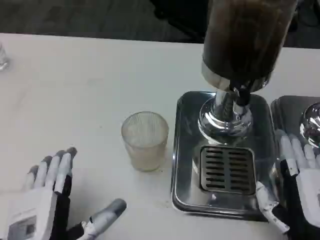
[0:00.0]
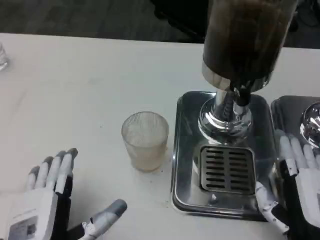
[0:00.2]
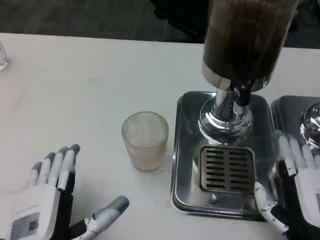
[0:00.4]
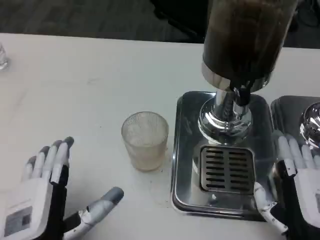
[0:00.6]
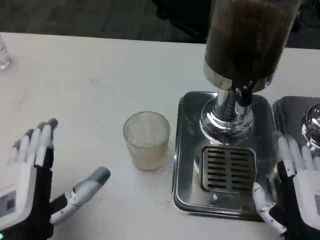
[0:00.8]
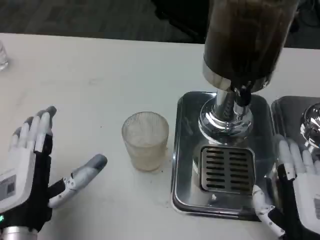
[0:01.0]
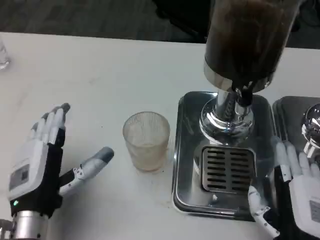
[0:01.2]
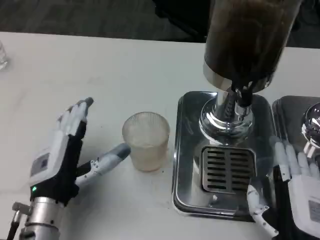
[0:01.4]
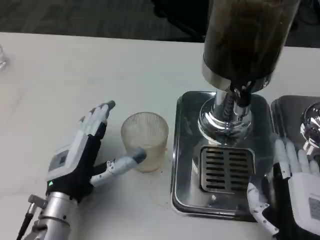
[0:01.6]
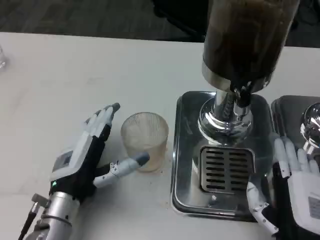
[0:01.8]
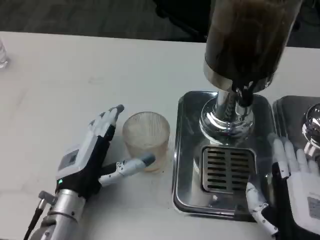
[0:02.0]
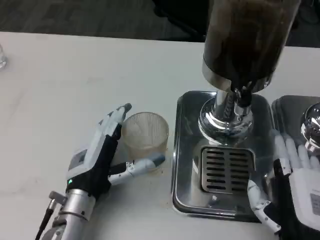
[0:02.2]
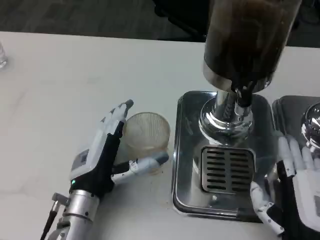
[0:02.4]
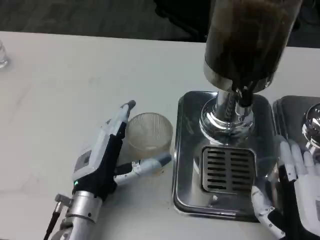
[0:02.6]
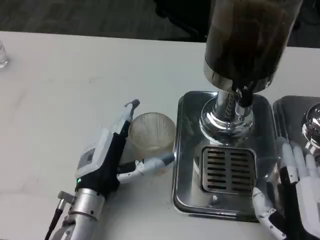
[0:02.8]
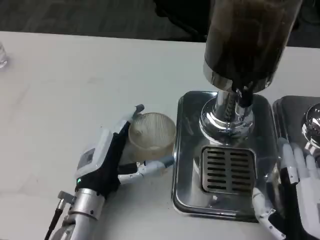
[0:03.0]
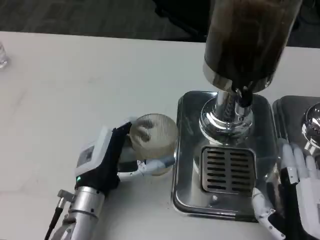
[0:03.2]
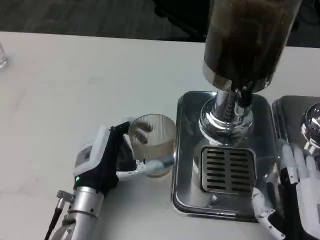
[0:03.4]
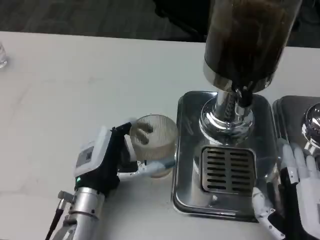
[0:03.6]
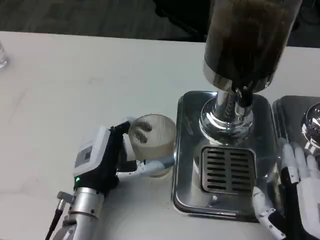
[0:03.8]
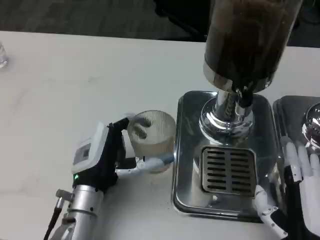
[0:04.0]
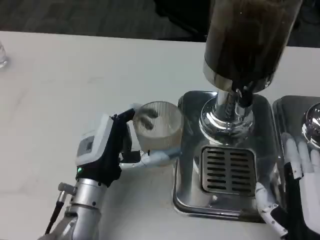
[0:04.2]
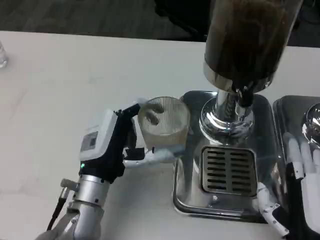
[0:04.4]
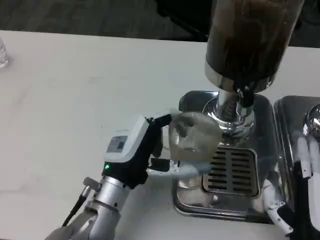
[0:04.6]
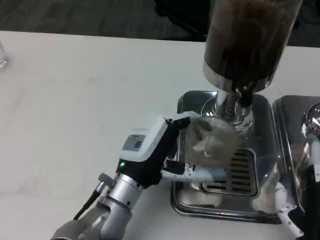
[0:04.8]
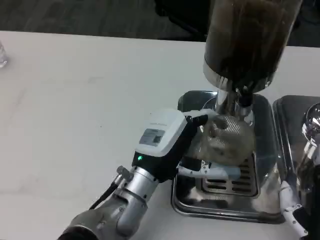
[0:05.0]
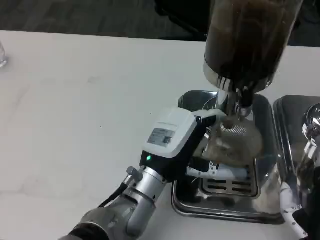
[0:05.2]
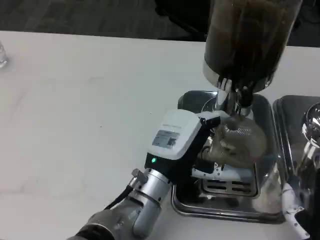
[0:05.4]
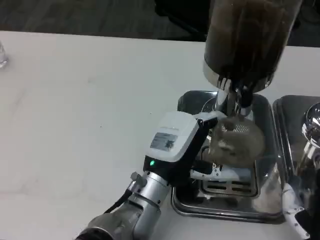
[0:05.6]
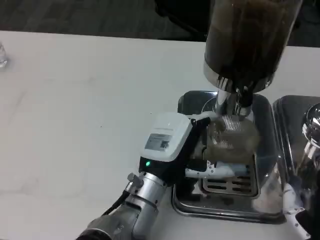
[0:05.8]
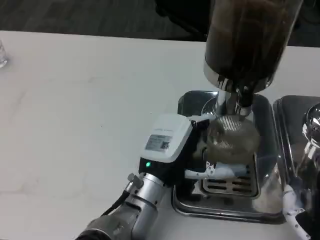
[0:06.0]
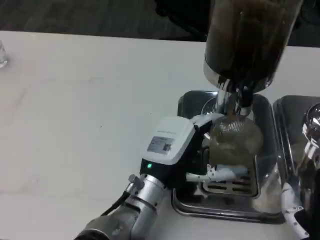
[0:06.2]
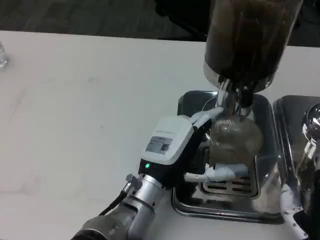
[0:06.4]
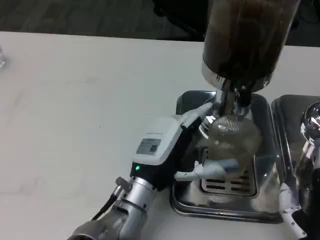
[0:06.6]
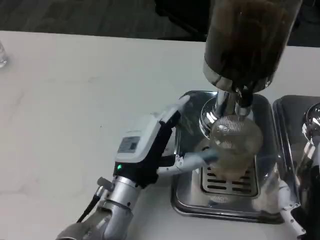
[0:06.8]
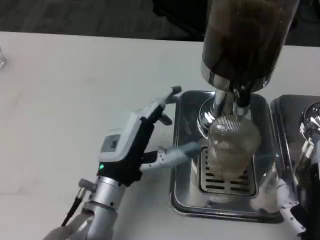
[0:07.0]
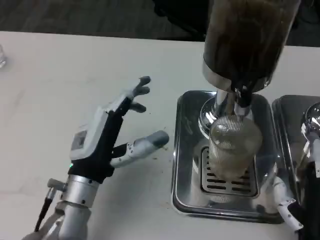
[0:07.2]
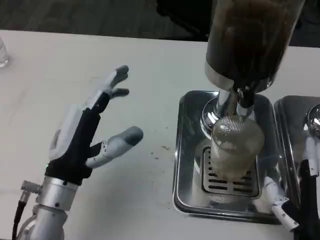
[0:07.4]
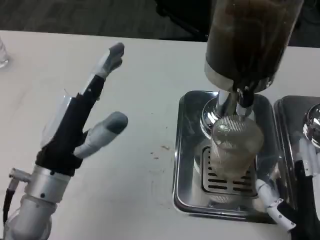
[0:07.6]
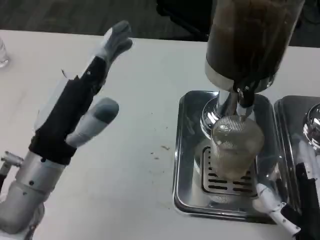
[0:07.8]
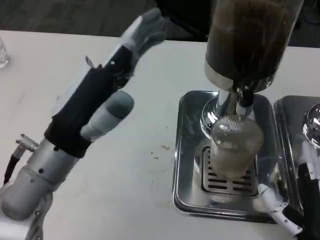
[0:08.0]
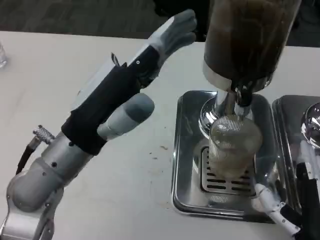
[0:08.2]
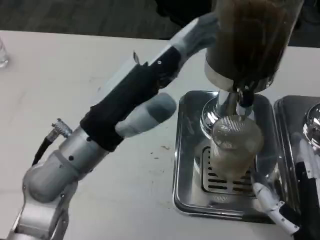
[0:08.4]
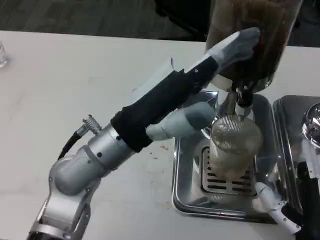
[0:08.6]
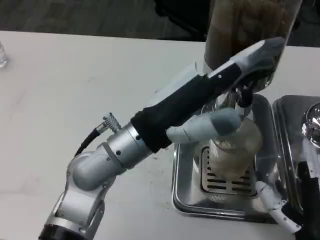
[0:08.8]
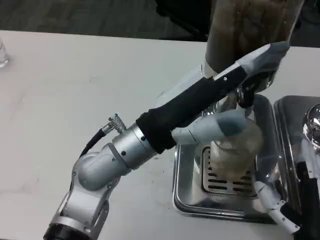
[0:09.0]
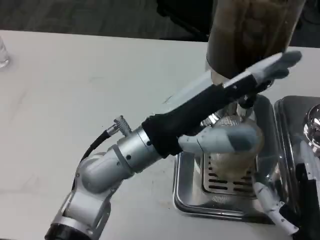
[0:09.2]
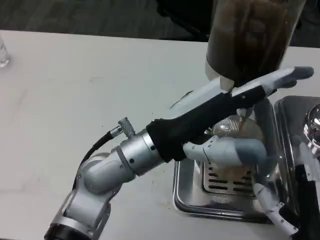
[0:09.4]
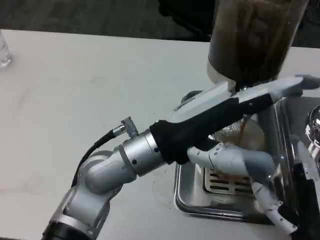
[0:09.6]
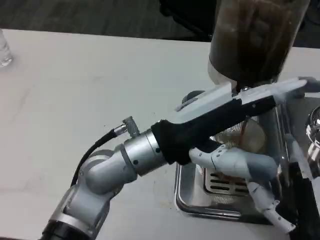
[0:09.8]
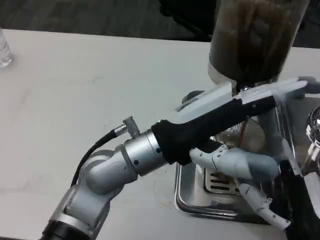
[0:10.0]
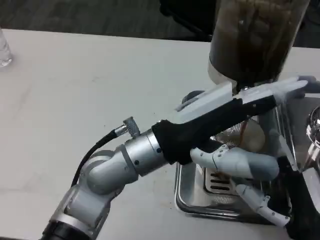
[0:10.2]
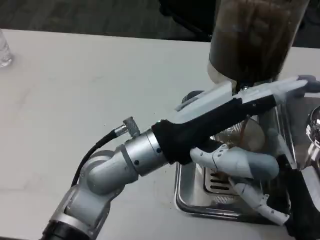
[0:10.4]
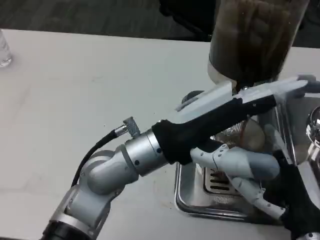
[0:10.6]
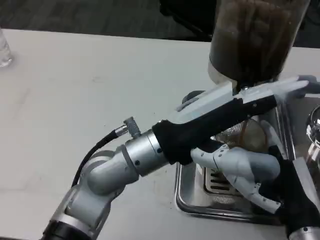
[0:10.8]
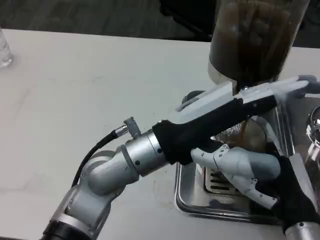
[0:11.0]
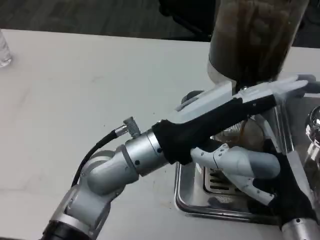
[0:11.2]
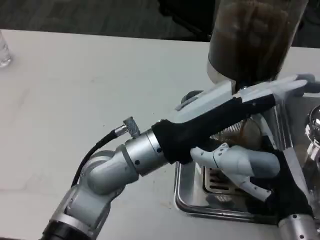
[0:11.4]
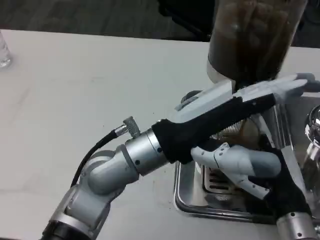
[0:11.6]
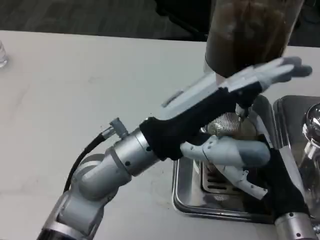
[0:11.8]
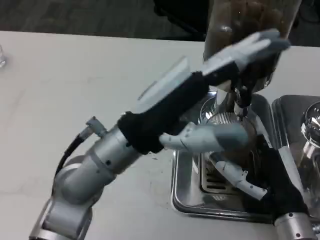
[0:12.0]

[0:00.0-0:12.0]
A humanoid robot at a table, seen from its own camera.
Task of the whole recording: Grasp the cup under the faucet to collect the drink, then remove the cup.
0:00.0 to 0:01.6: The left hand shifts some 10 cm forward.
0:03.0 to 0:04.4: The hands stay close to where they were, moving slightly.
0:04.4 to 0:06.0: The left hand goes roughly 10 cm to the right.
0:06.0 to 0:07.6: The left hand goes roughly 15 cm to the left and upward.
0:07.6 to 0:09.0: The left hand moves to the right and upward, about 10 cm.

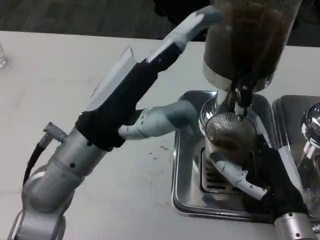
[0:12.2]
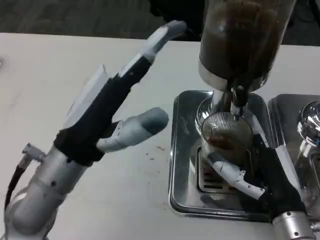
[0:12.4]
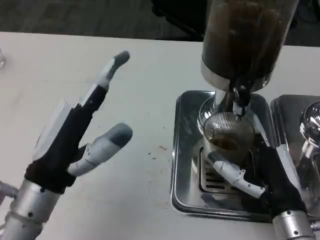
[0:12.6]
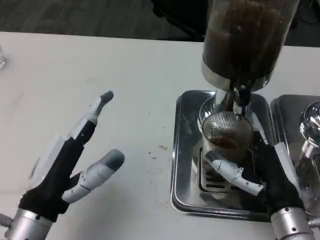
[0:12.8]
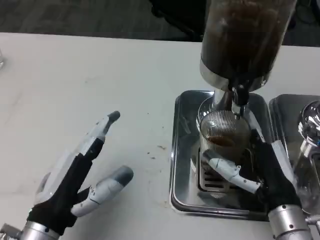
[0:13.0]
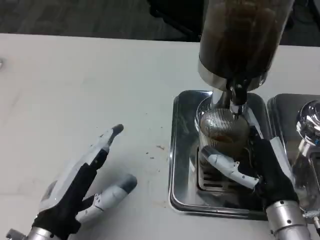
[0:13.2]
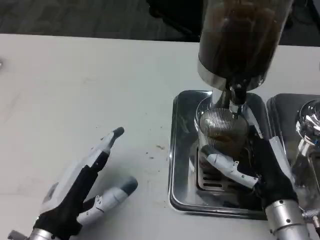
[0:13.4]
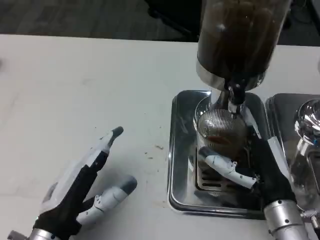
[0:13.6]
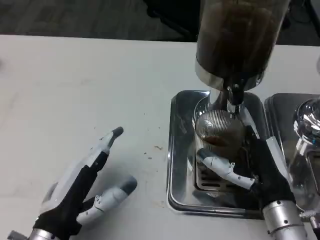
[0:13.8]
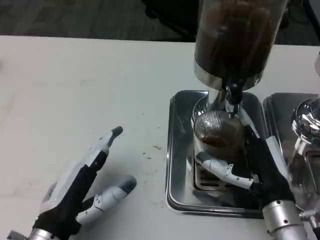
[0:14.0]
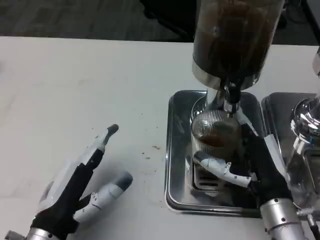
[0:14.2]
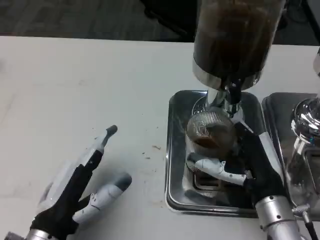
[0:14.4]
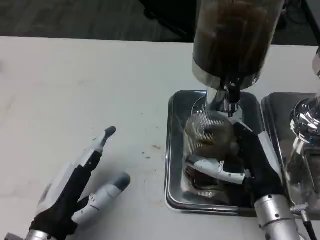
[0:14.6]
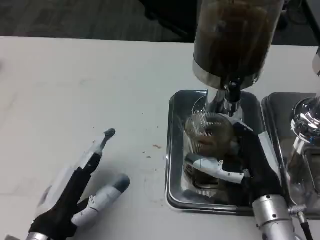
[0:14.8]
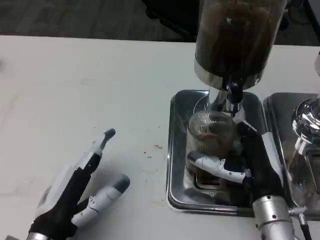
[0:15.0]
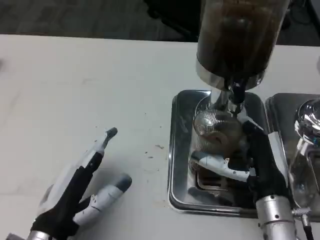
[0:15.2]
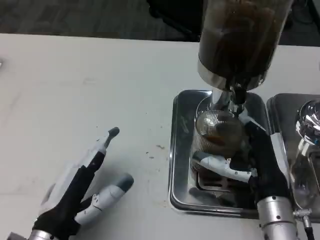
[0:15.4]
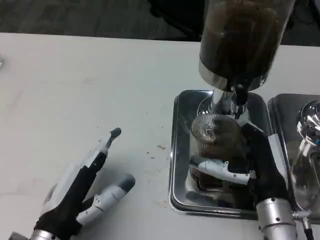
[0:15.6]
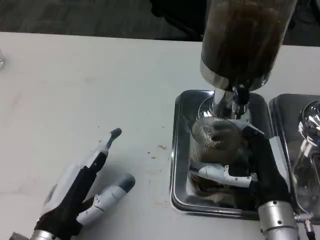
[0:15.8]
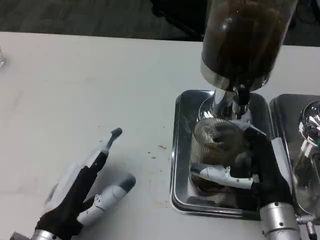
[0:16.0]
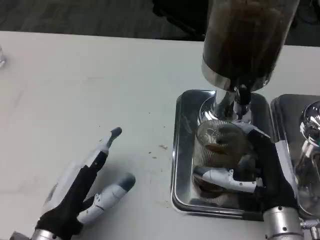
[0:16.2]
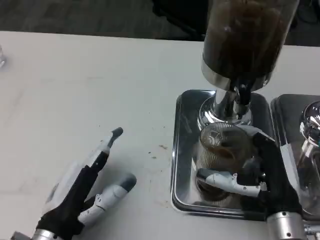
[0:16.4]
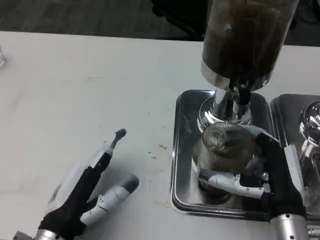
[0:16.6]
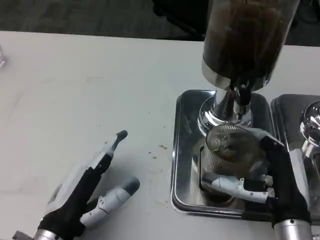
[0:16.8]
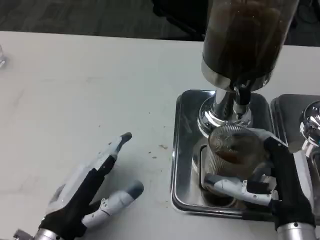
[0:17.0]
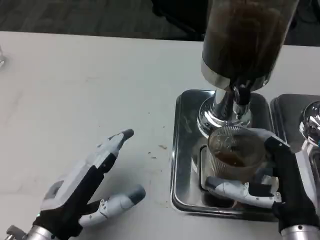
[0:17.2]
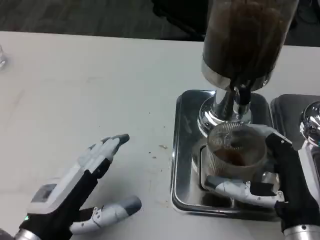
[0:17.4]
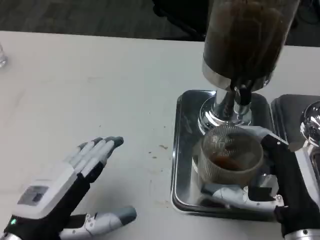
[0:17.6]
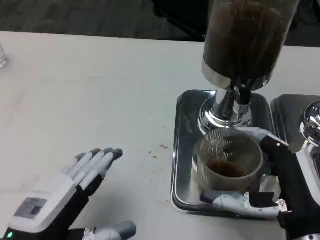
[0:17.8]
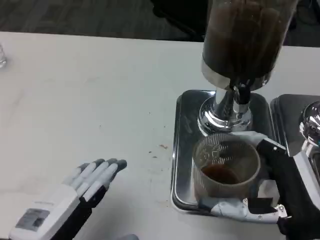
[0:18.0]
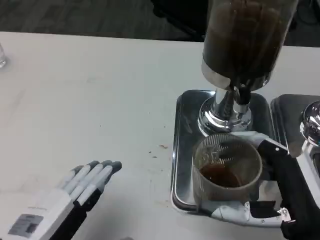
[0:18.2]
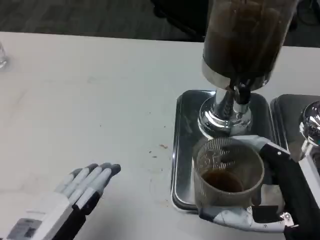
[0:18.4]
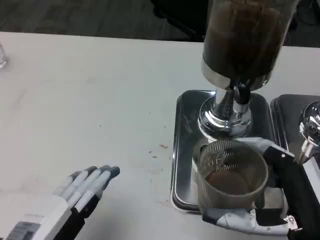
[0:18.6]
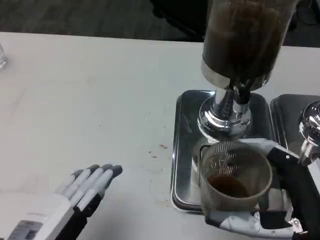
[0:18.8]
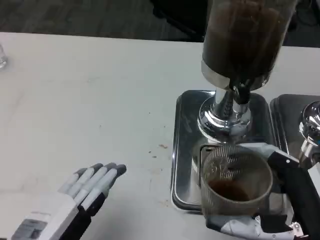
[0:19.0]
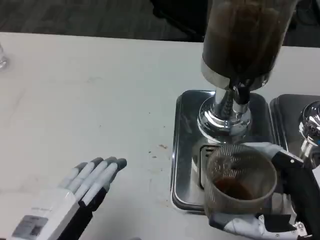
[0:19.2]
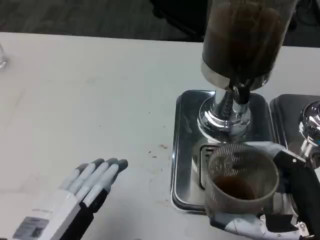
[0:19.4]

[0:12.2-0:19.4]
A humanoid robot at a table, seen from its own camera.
Task of the whole recording: Grasp the cup under the faucet to collect the drink, then remove the cup.
0:12.2 to 0:13.6: The left hand travels downward, backward and to the left by roughly 15 cm.
0:13.6 to 0:15.0: The hands make only small movements.
0:16.6 to 0:18.0: The left hand shifts roughly 10 cm upward and backward; the right hand travels backward by some 5 cm.
0:18.0 to 0:19.4: The hands make only small movements.

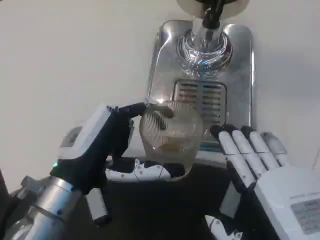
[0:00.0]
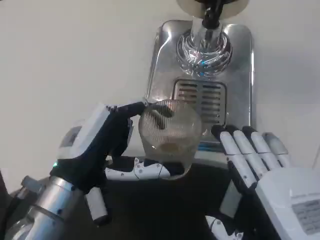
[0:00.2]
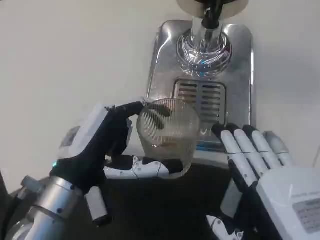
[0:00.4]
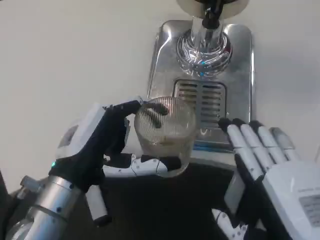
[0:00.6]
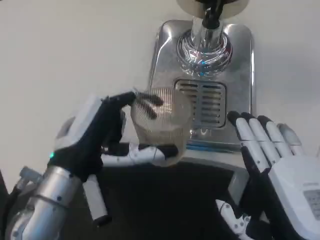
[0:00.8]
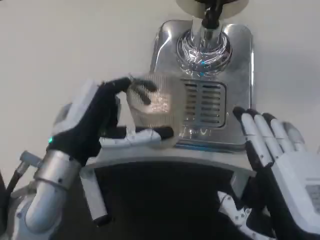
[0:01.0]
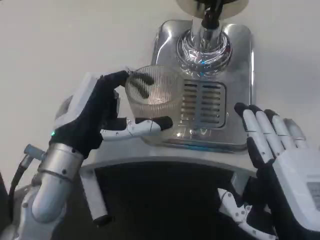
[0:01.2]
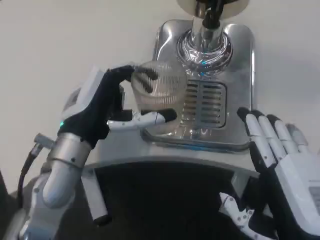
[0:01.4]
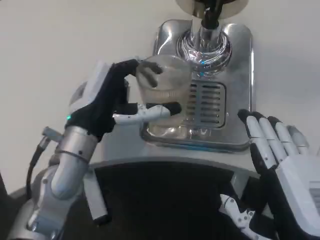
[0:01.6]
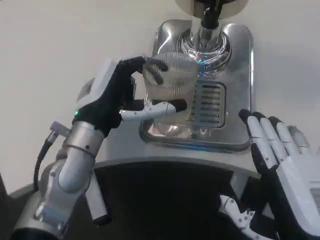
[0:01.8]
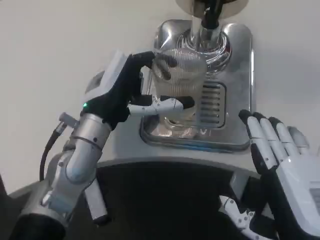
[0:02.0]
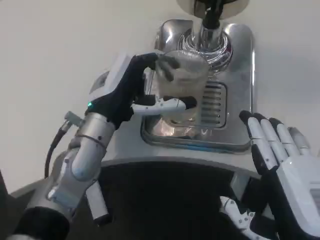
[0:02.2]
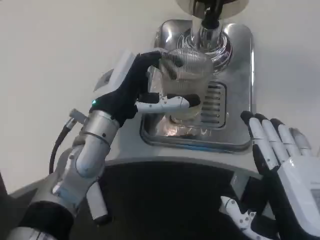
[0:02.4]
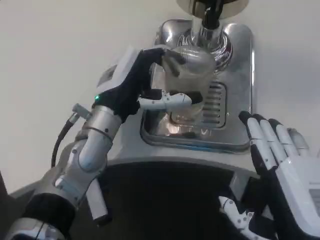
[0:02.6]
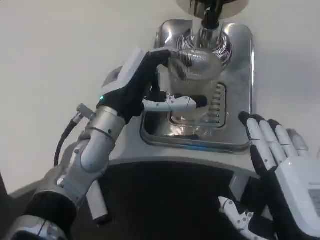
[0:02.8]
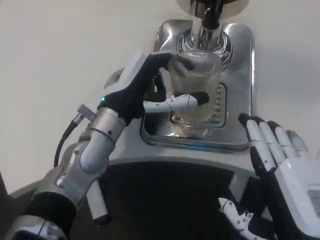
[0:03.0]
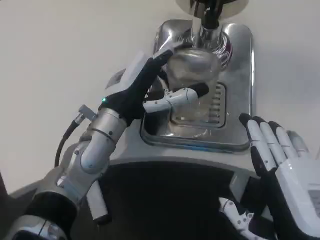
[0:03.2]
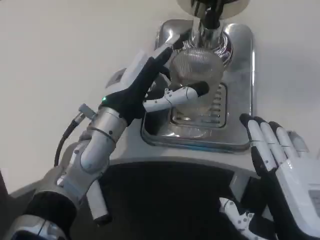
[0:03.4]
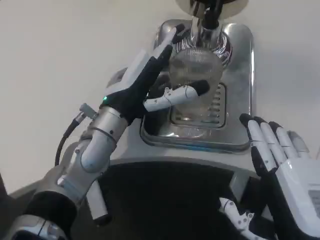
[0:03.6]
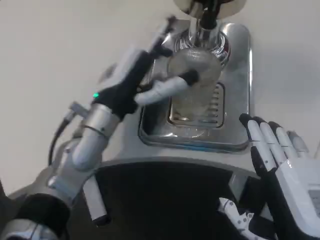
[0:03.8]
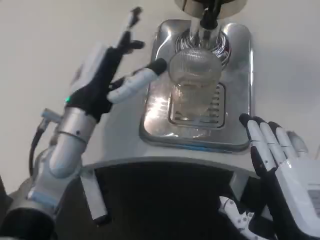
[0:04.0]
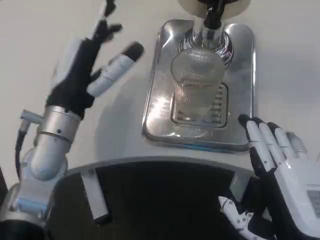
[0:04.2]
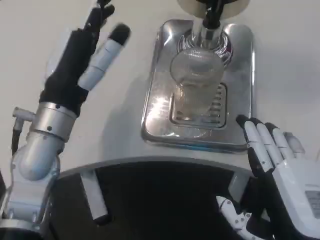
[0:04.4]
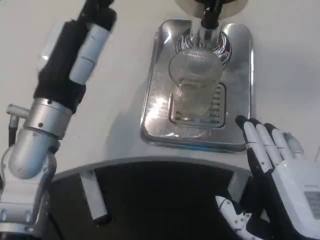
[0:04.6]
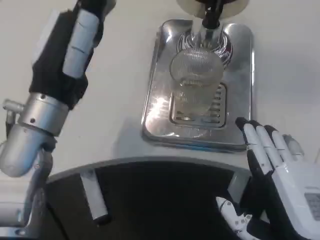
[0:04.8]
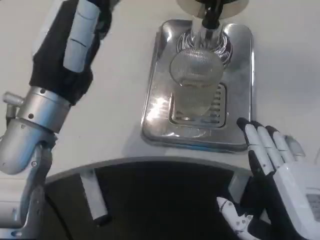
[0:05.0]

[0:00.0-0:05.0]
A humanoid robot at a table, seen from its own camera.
Task of the whole recording: Grasp the cup under the faucet to collect the drink, then remove the cup.
0:00.0 to 0:01.6: The left hand moves forward, about 5 cm.
0:03.4 to 0:05.0: The left hand moves upward and backward, approximately 10 cm.
